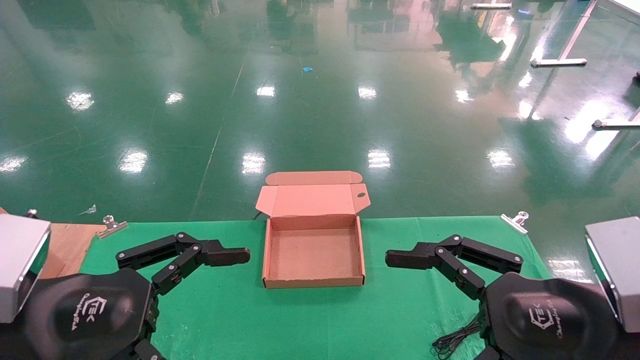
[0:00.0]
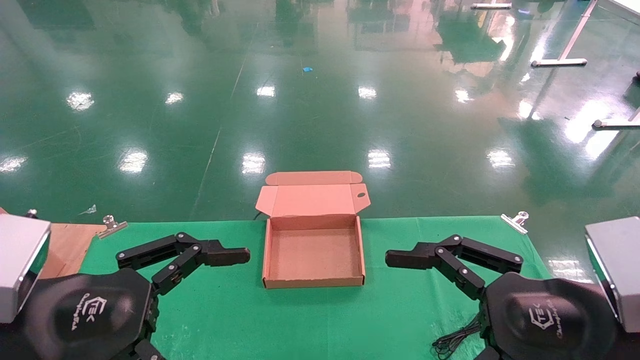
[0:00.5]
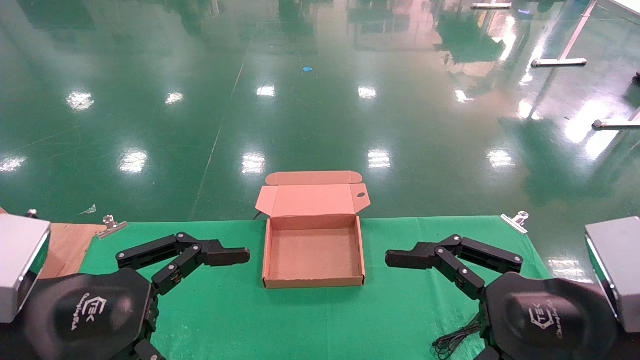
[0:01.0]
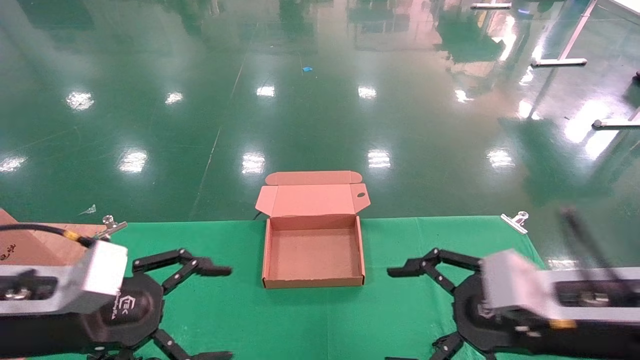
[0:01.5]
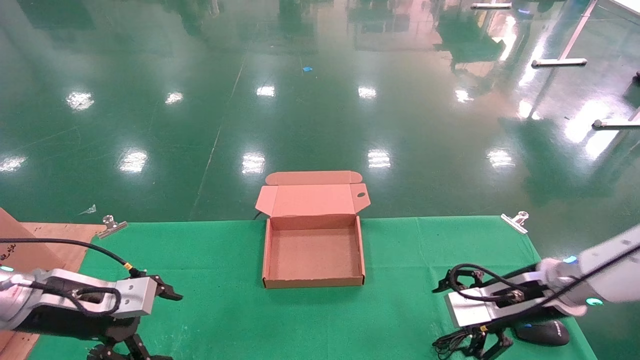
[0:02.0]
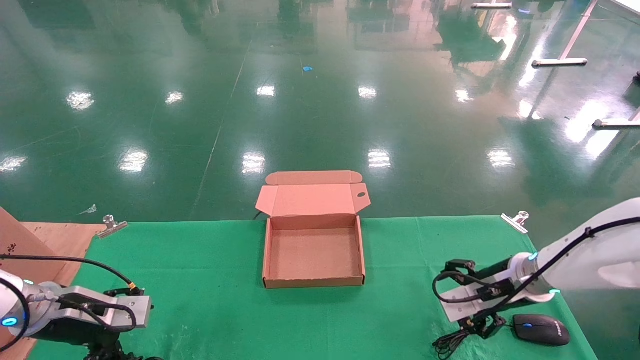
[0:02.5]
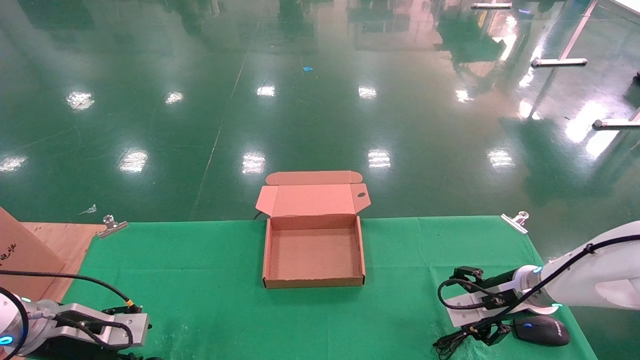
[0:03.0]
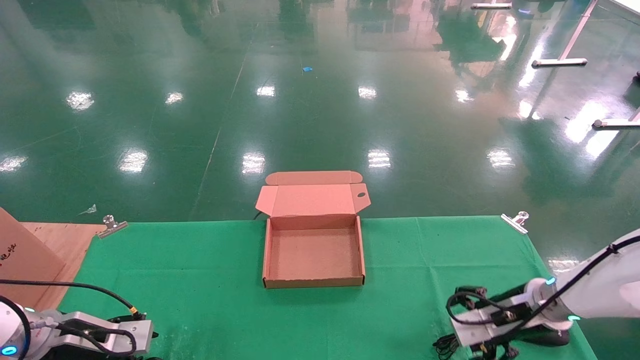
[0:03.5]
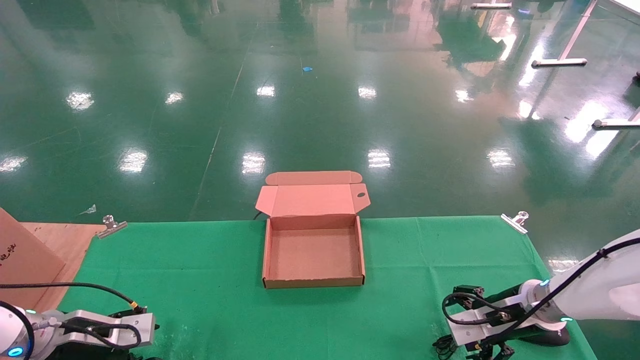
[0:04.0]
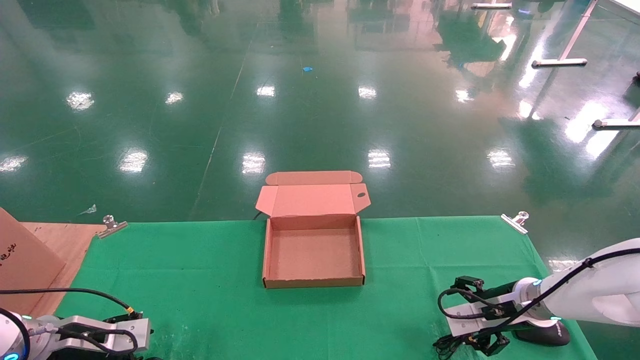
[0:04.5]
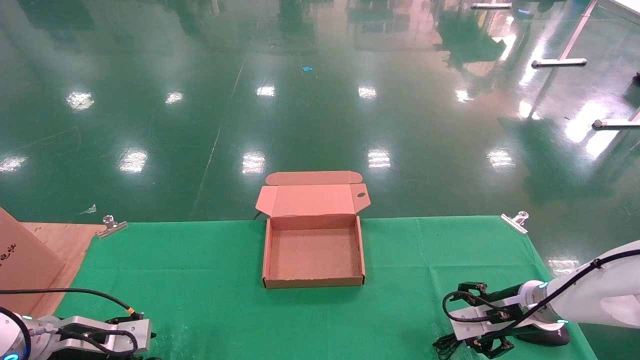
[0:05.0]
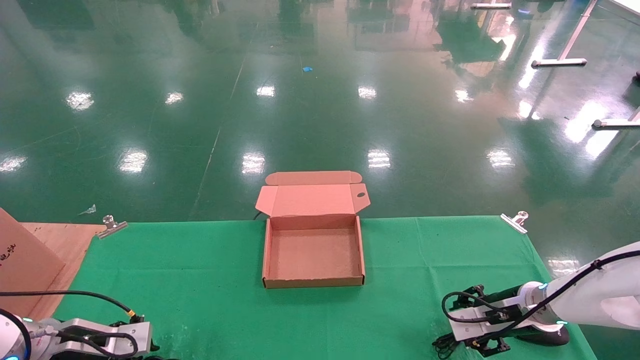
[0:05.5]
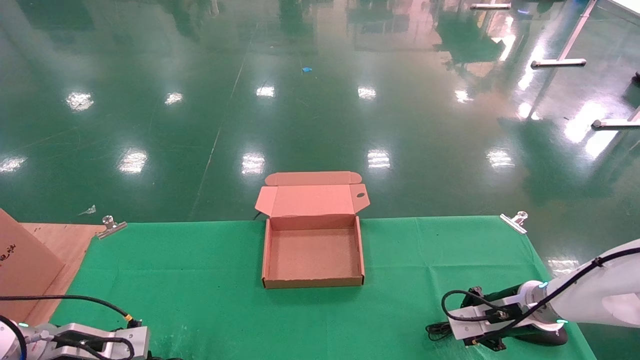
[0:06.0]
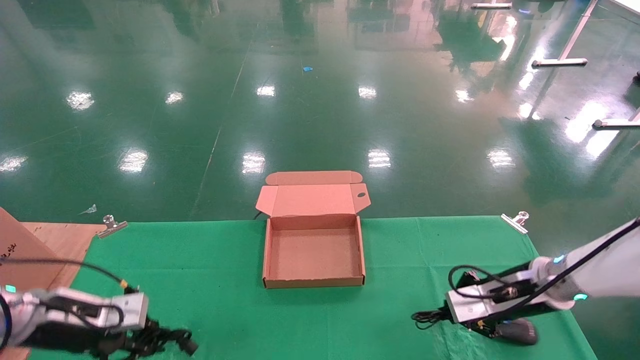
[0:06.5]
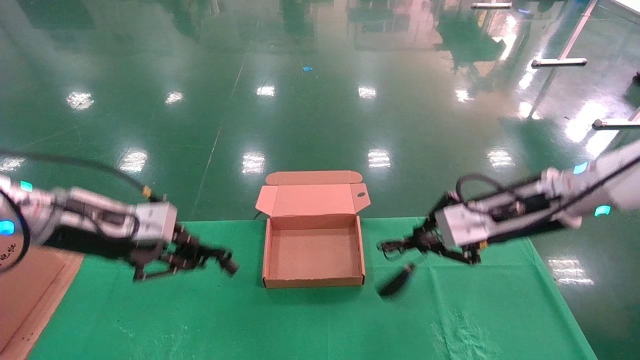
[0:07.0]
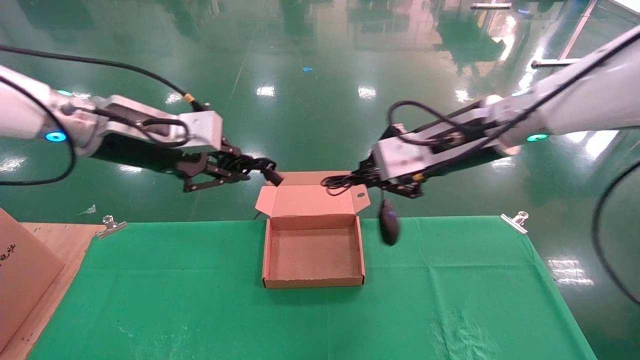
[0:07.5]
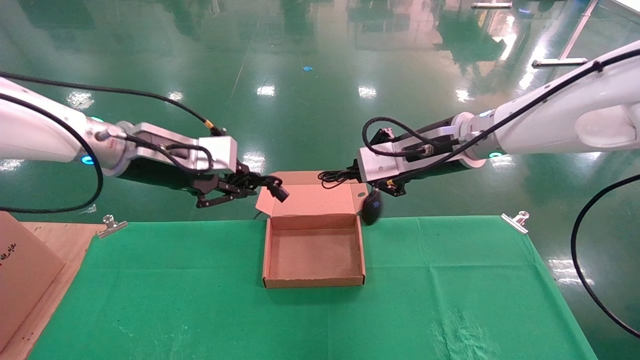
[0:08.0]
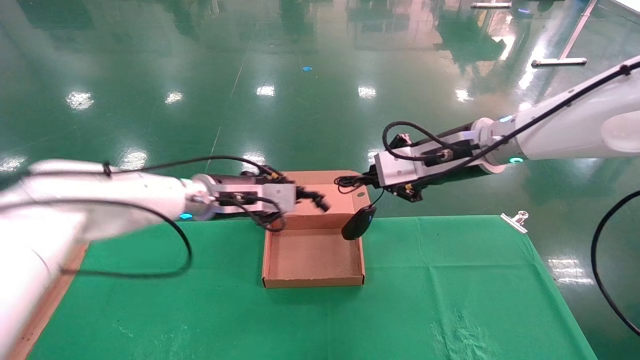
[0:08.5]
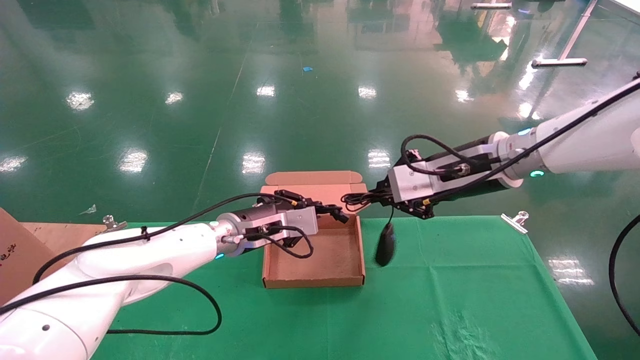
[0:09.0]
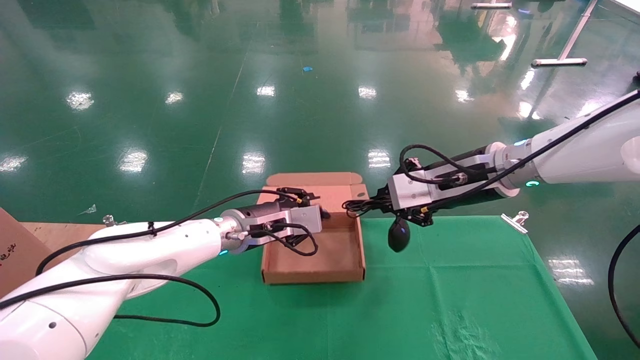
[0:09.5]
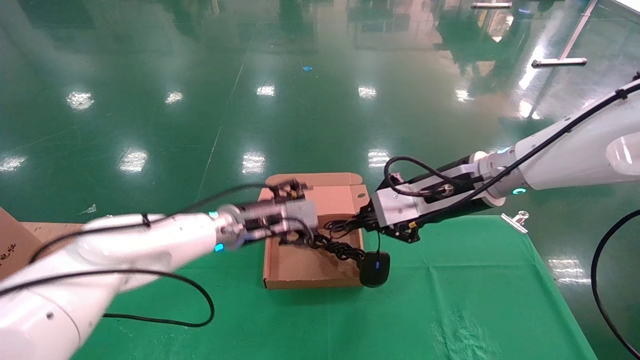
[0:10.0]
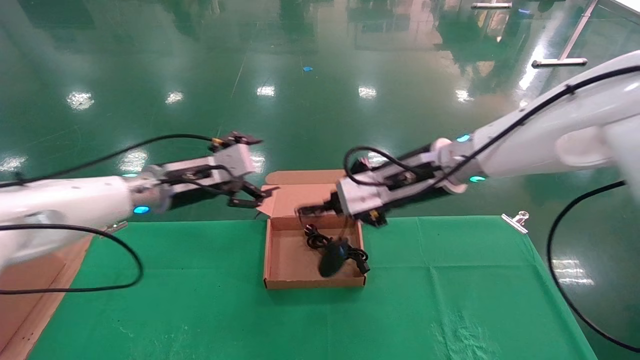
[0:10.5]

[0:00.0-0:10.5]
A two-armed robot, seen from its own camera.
Step, 0:02.0 to 0:06.5: Grab and lift both the mouse and power cord from the accessory packaging area at the same time.
0:00.0 to 0:02.0: The left gripper travels forward, to the left and downward by roughly 20 cm. Meanwhile the right gripper moves forward, roughly 20 cm.
0:02.0 to 0:04.0: Both grippers travel together downward, about 10 cm.
0:04.0 to 0:06.5: The two grippers go roughly 5 cm upward. The right gripper closes its fingers, while the left gripper closes.
0:06.5 to 0:08.5: The left gripper shifts about 25 cm to the right, upward and forward; the right gripper heads upward and to the left, covering some 20 cm.
0:08.5 to 0:10.5: Both grippers travel together to the left, some 5 cm. The left gripper opens its fingers.

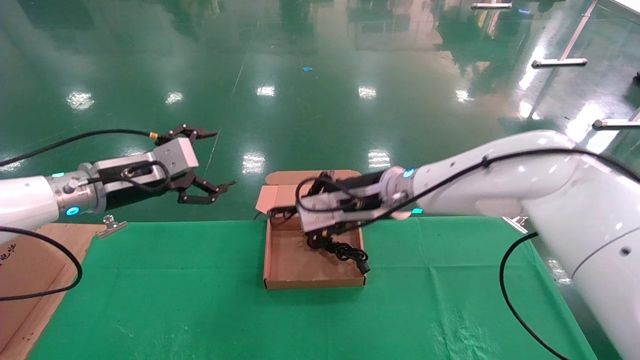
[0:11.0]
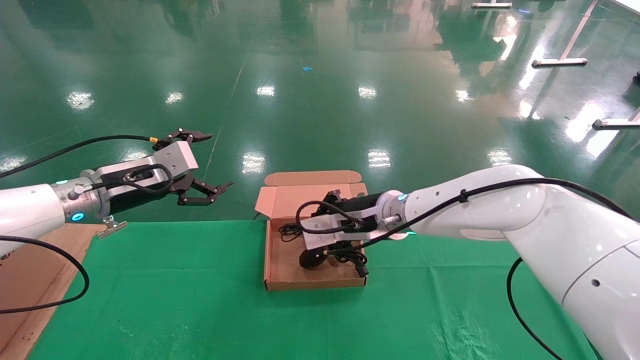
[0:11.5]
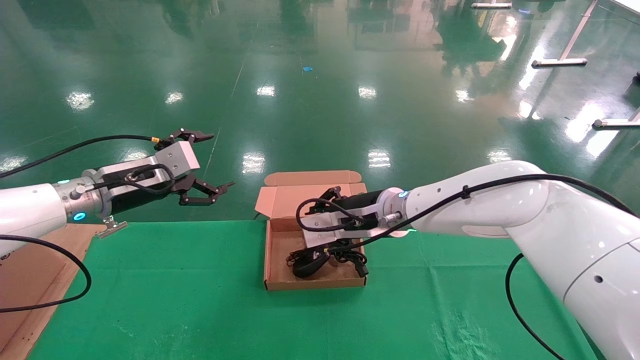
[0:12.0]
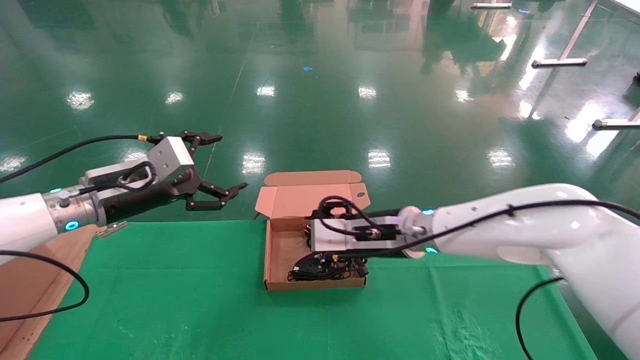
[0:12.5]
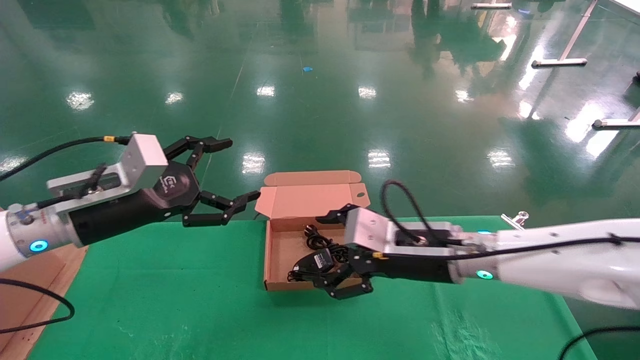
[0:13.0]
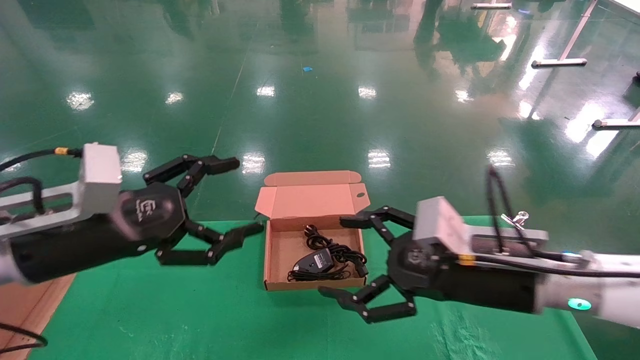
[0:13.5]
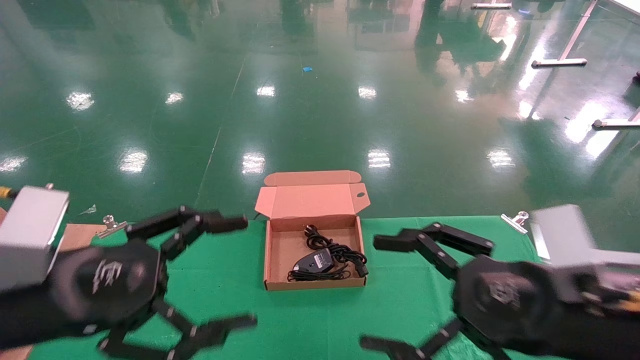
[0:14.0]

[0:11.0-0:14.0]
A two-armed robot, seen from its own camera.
Step, 0:11.0 to 0:13.0: Place the mouse and power cord into the box.
0:11.0 to 0:12.5: The right gripper heads downward, covering about 5 cm, and opens up.
0:12.5 to 0:14.0: The right gripper moves backward and to the right, about 25 cm, and opens its fingers. Meanwhile the left gripper heads backward, covering some 20 cm.
